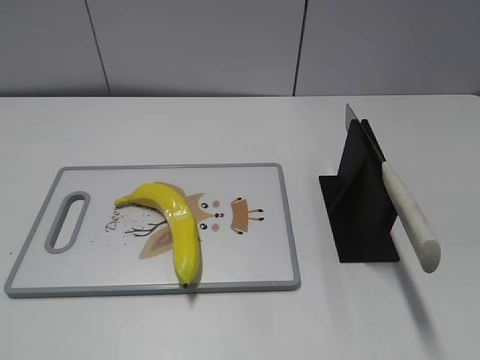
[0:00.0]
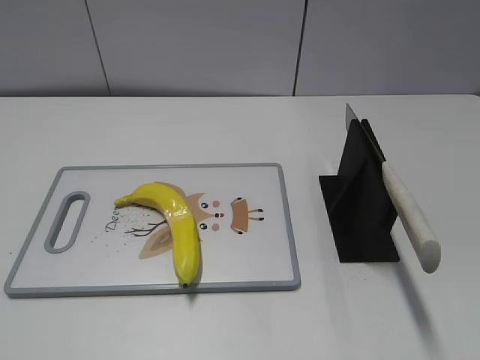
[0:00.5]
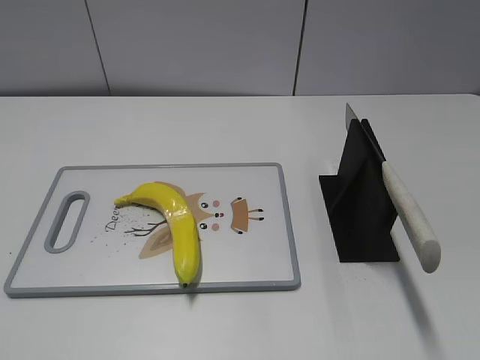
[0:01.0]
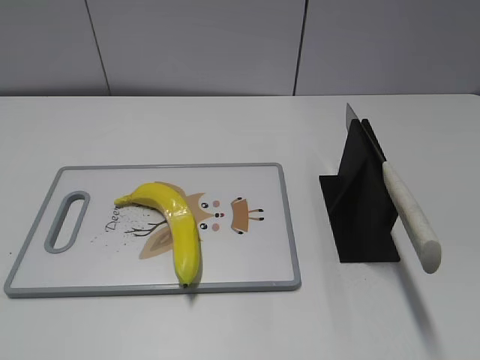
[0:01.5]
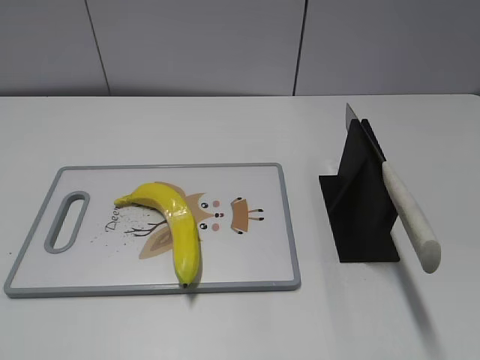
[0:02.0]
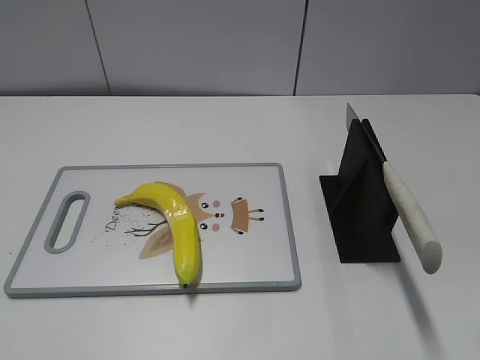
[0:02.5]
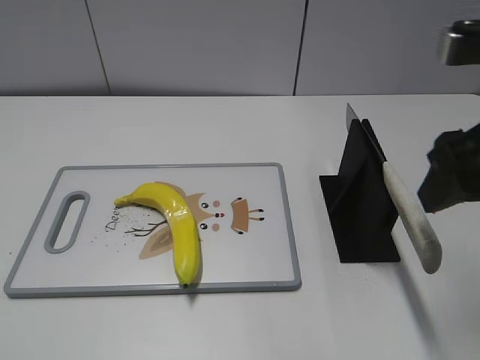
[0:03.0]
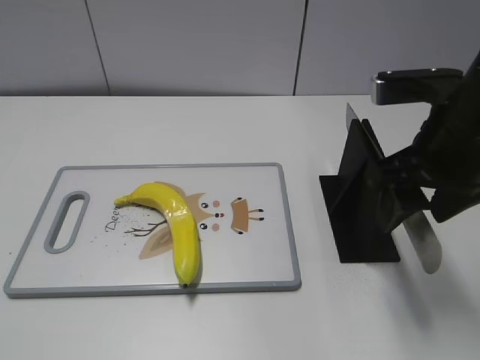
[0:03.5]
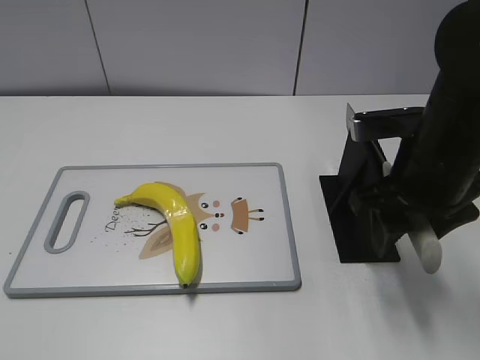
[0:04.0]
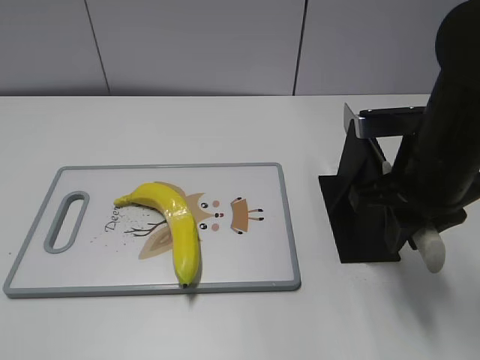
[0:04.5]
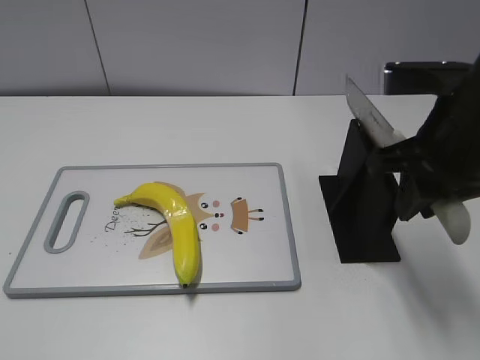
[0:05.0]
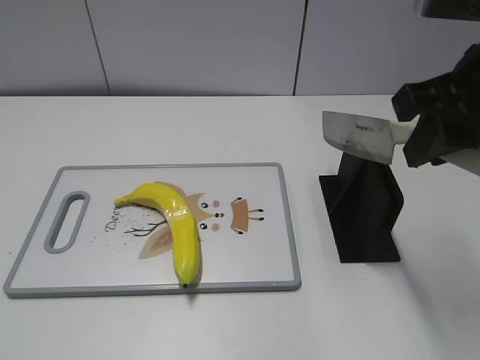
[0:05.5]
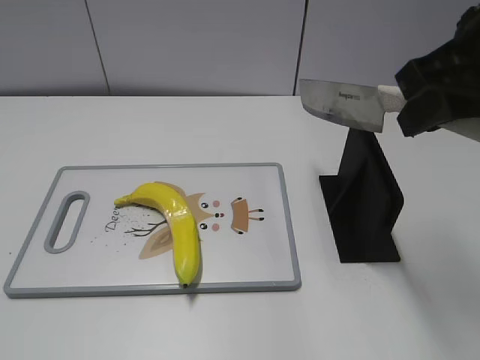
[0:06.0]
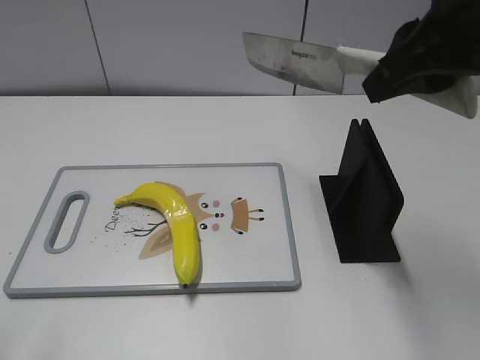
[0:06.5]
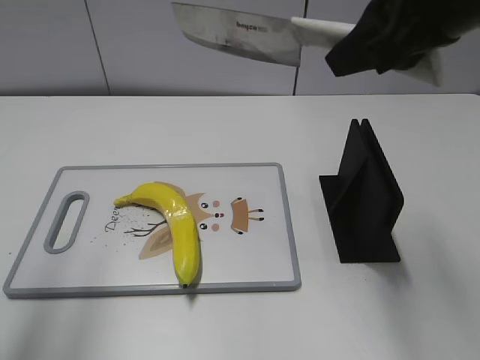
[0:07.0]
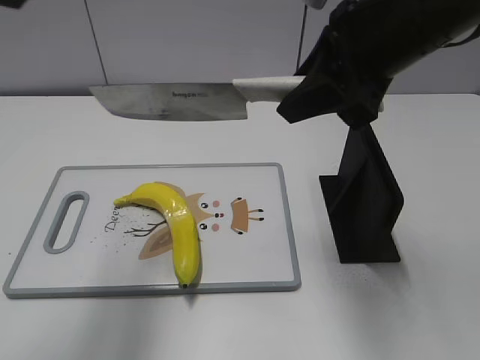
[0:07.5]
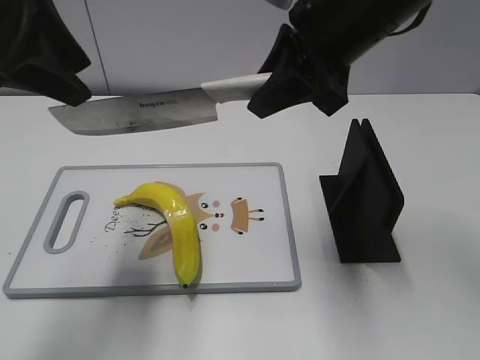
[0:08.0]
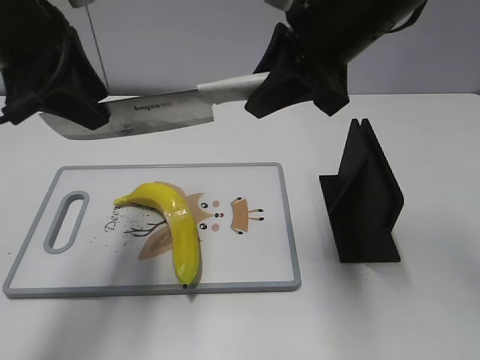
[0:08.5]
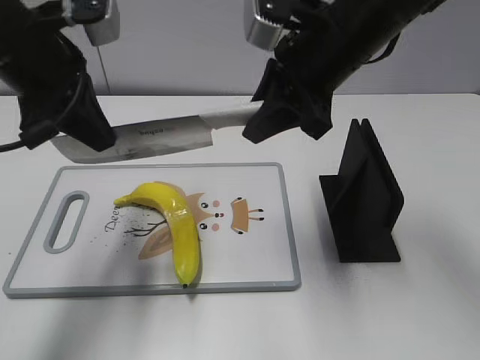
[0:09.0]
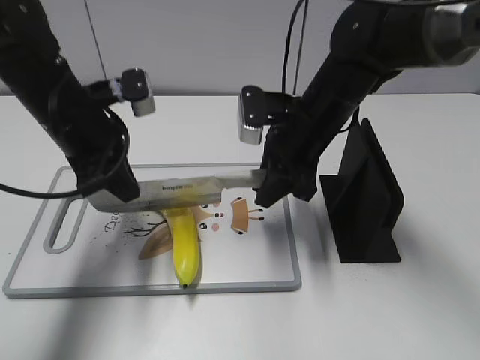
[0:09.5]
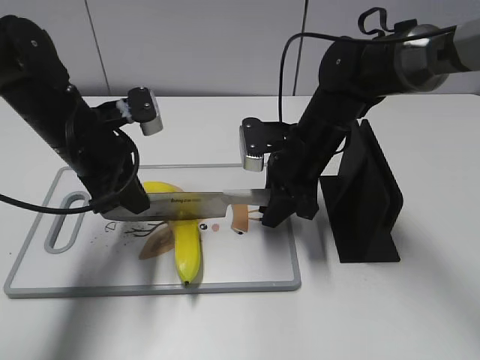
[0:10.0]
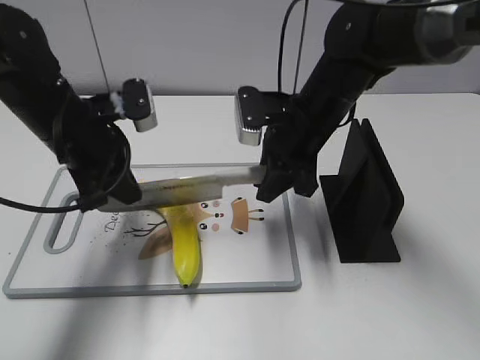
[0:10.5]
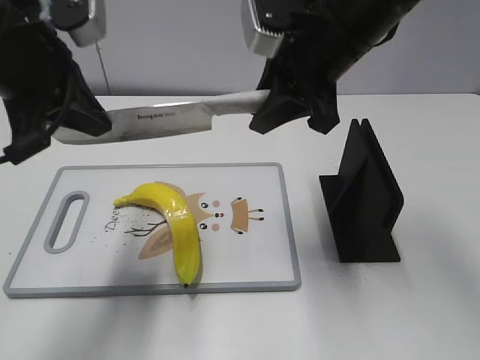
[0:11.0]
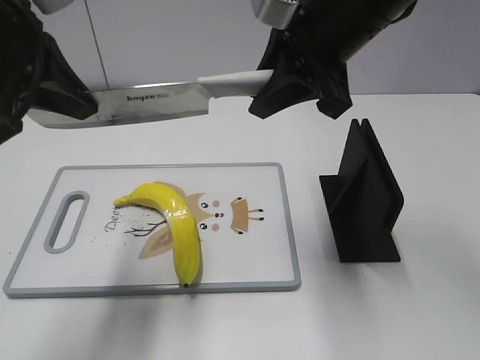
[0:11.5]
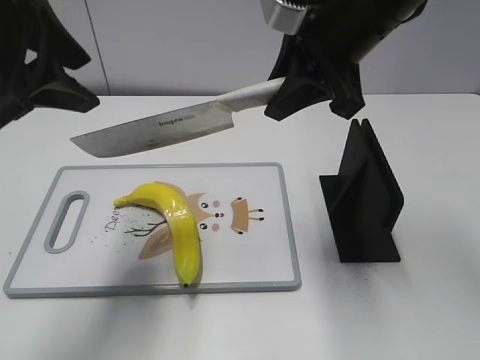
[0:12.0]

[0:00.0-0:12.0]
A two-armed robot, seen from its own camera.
Task of the whole recording: cut plastic banana.
Step, 0:00.0 to 0:05.0: Grab the knife handle with your right hand.
Step, 0:05.5 to 0:11.0: Lift the knife with your right hand.
0:02.0 to 0:04.0: The right gripper goes approximately 25 cm forward, downward and to the left.
0:04.0 to 0:06.0: The right gripper moves upward, roughly 15 cm, and closes its fingers.
0:06.0 to 0:08.0: The left gripper travels forward by approximately 30 cm. Meanwhile the right gripper moves to the left and forward, roughly 10 cm.
0:08.0 to 0:10.0: Both grippers move downward, some 20 cm. The left gripper closes up.
0:10.0 to 0:12.0: The grippers both shift upward by roughly 20 cm. The left gripper opens up.

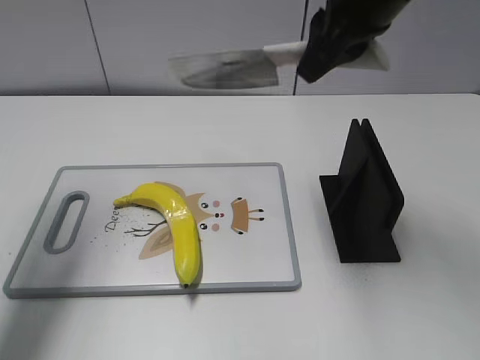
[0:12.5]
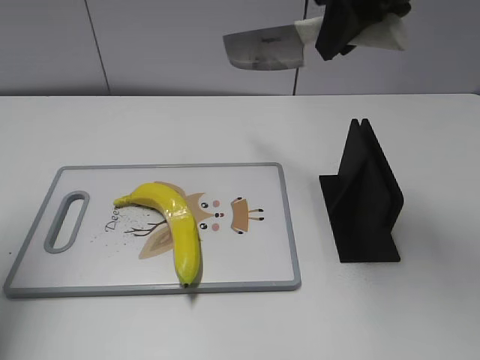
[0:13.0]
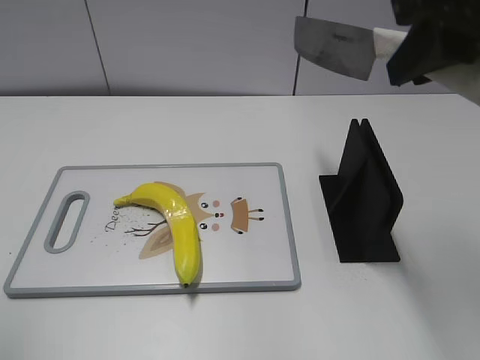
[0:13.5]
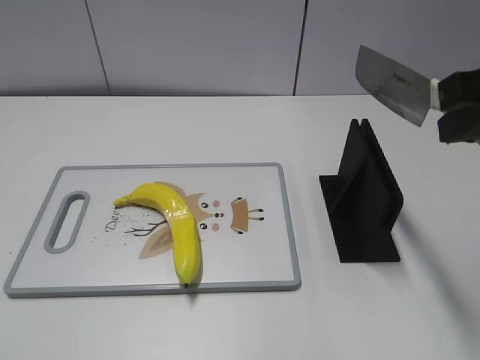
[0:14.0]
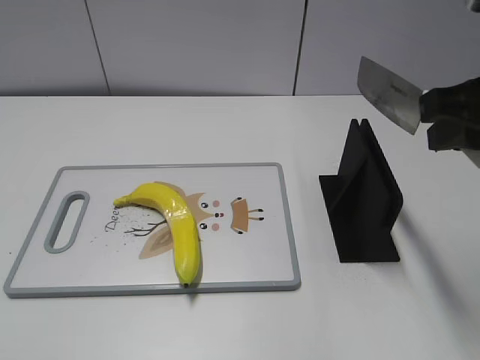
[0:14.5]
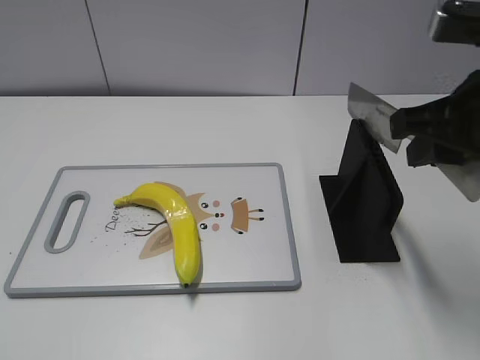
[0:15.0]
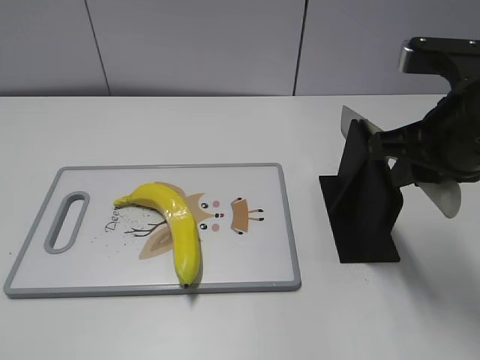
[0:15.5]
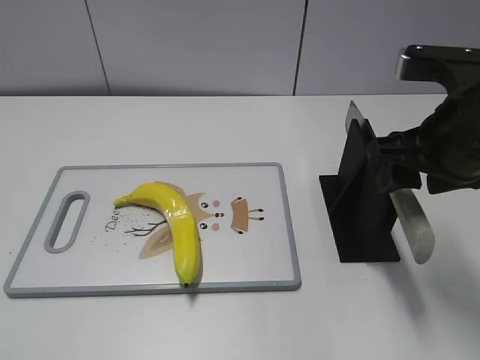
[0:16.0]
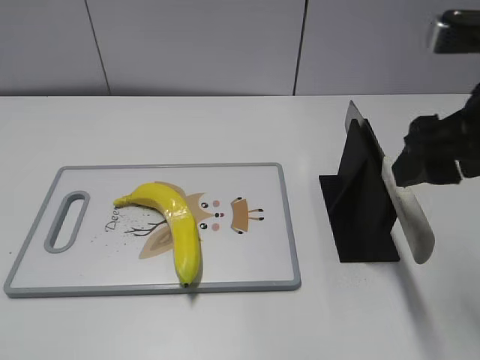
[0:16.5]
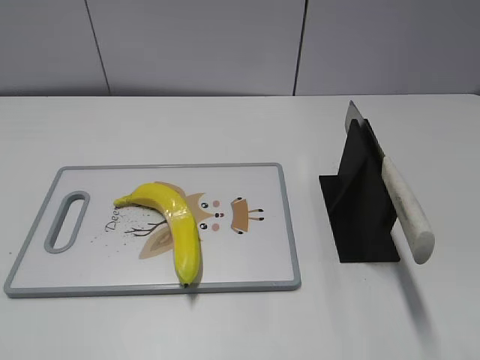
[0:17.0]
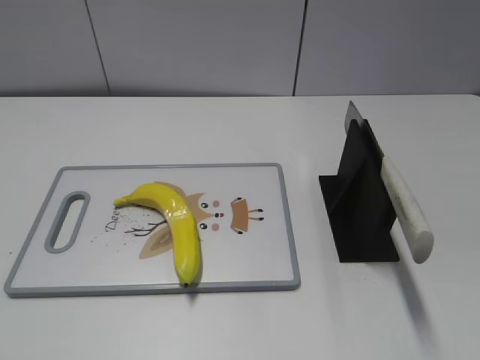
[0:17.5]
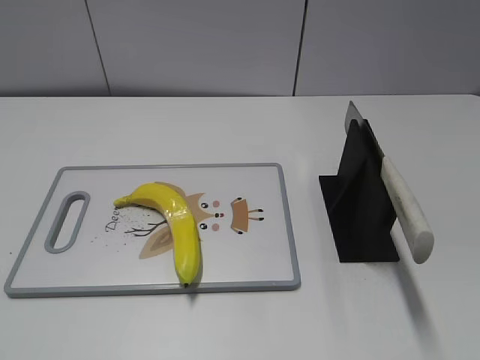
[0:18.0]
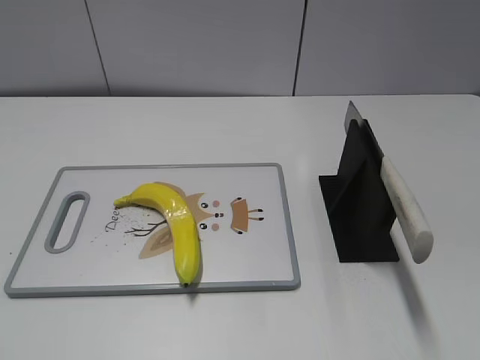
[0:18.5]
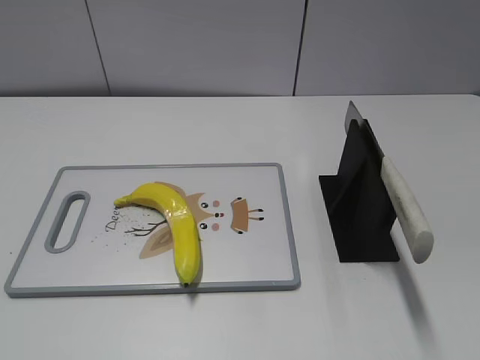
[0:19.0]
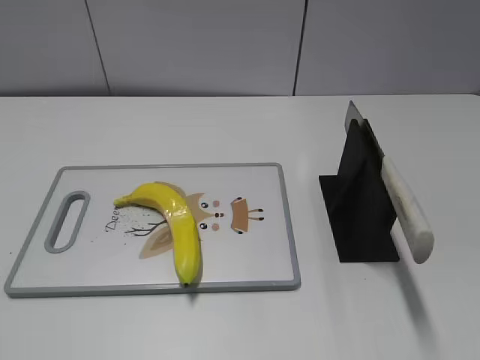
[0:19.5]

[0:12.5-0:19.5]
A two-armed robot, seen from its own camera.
Task of the whole recording: cut plastic banana.
Step, 0:13.0 to 0:14.0: Lift the knife with your right hand.
Step, 0:14.5 to 0:19.5: Place the knife on the storage rack with your right hand.
0:12.5 to 0:14.5: The left gripper shifts some 30 cm backward. Meanwhile the right gripper shifts approximately 15 cm backward and to the right.
0:14.5 to 0:16.0: The right gripper is displaced downward by about 5 cm, and opens.
0:16.0 to 0:17.5: The right gripper heads backward and to the right, covering some 25 cm.
